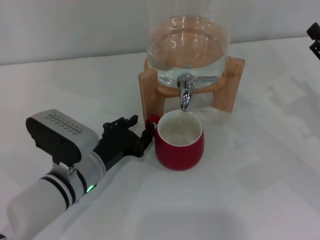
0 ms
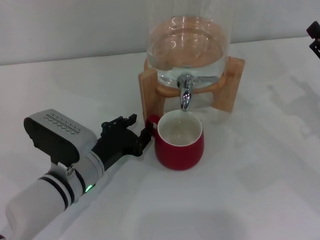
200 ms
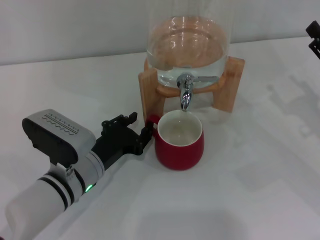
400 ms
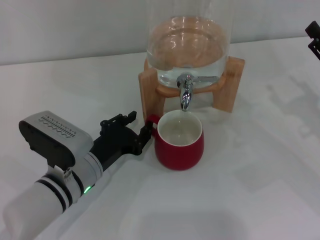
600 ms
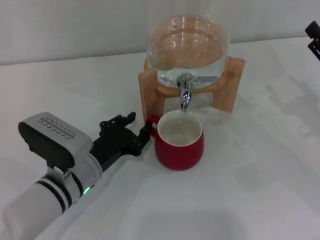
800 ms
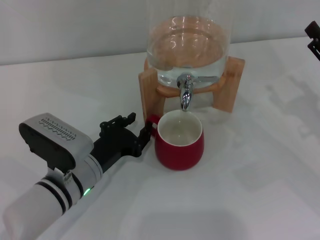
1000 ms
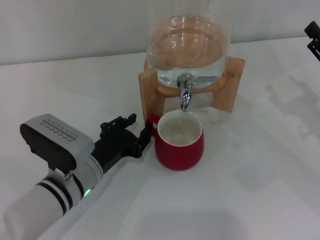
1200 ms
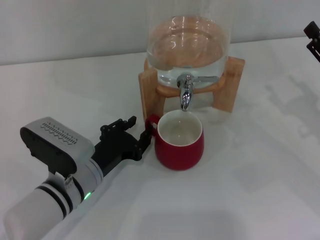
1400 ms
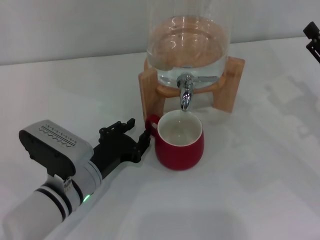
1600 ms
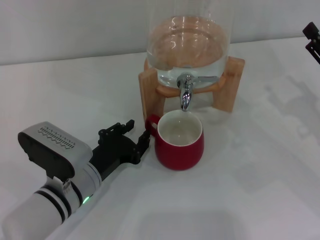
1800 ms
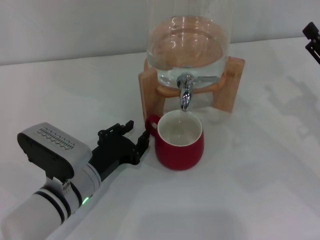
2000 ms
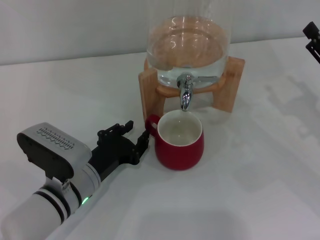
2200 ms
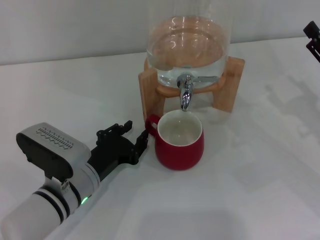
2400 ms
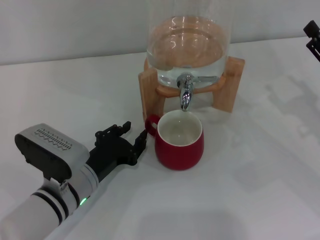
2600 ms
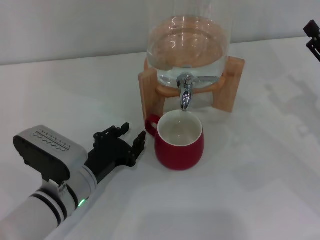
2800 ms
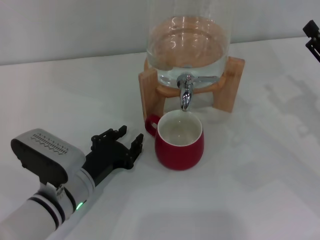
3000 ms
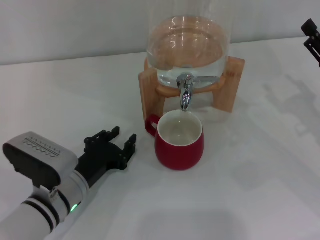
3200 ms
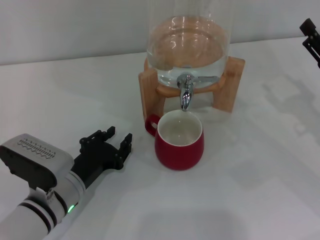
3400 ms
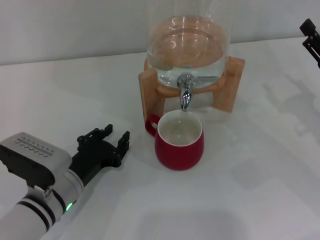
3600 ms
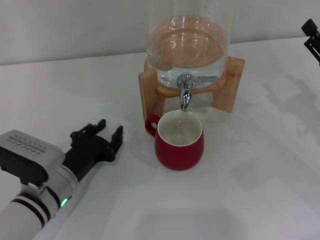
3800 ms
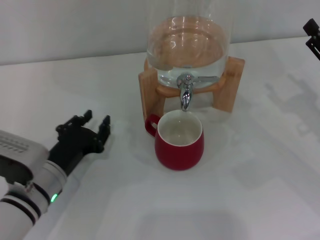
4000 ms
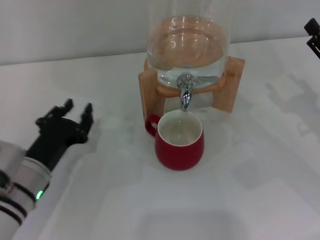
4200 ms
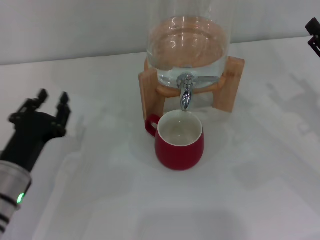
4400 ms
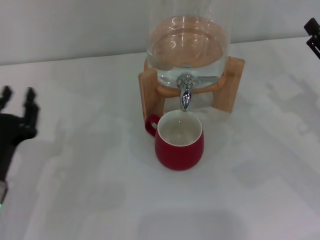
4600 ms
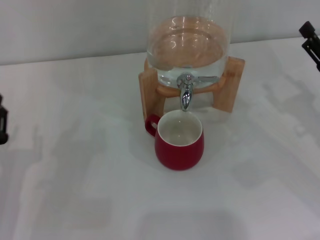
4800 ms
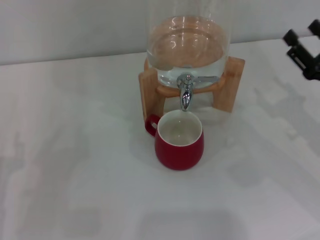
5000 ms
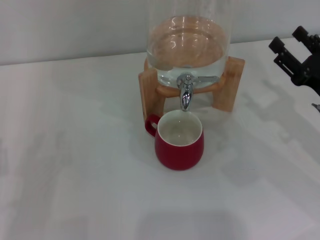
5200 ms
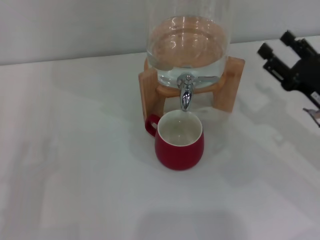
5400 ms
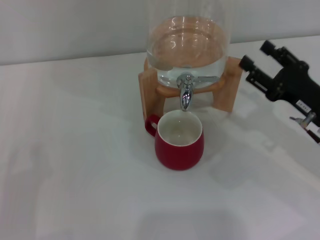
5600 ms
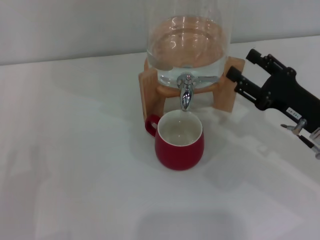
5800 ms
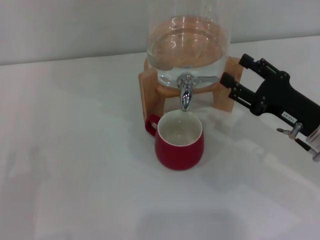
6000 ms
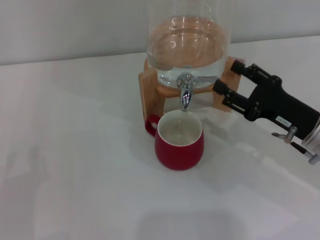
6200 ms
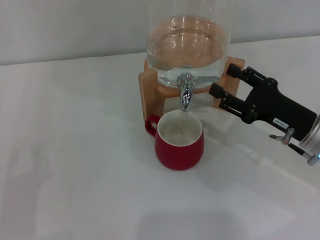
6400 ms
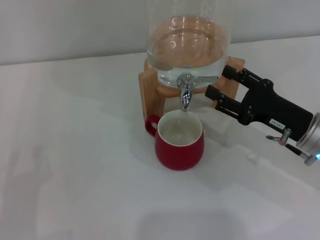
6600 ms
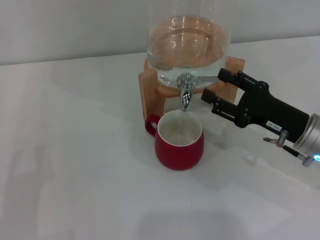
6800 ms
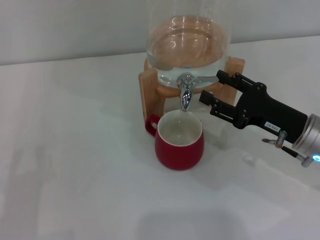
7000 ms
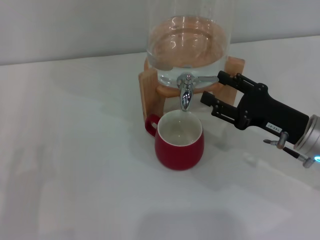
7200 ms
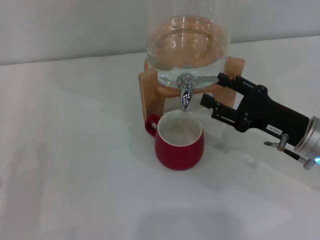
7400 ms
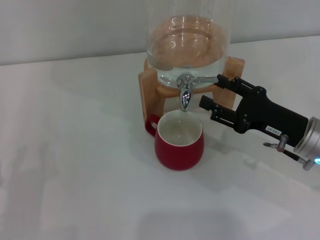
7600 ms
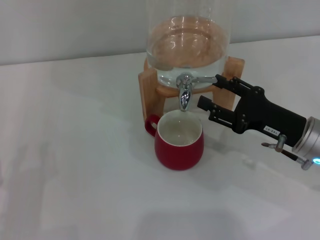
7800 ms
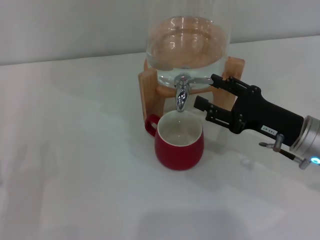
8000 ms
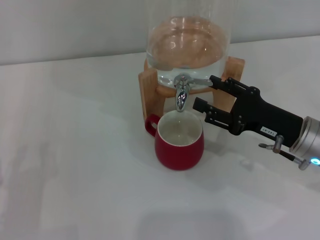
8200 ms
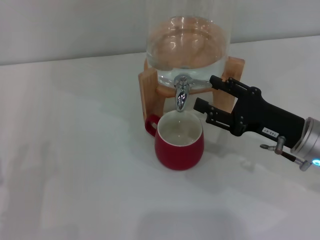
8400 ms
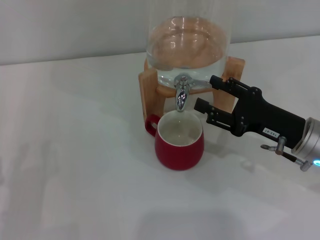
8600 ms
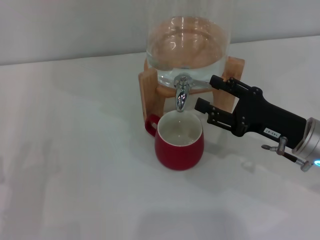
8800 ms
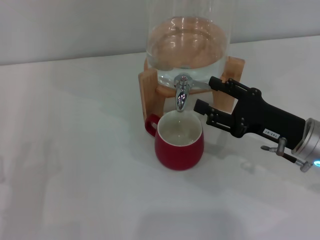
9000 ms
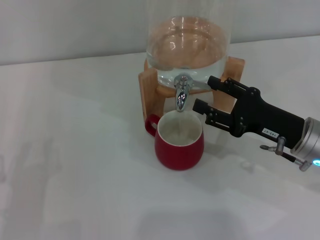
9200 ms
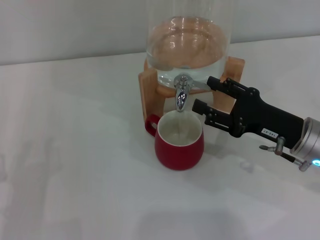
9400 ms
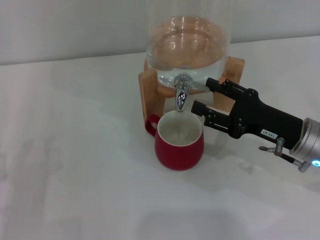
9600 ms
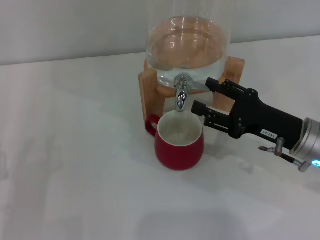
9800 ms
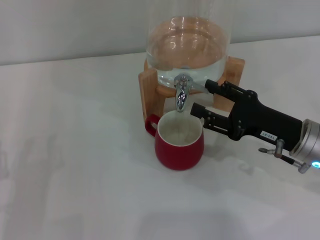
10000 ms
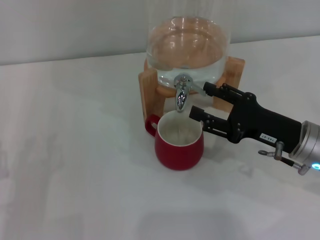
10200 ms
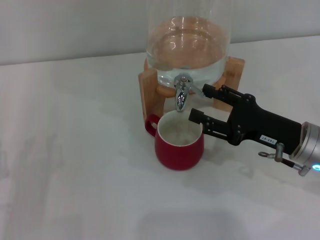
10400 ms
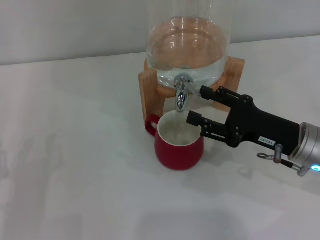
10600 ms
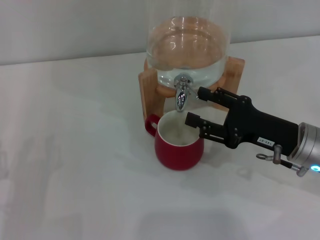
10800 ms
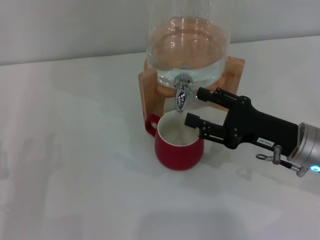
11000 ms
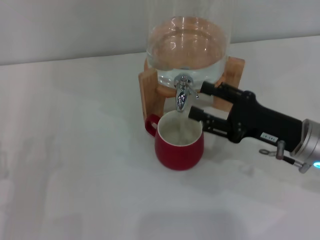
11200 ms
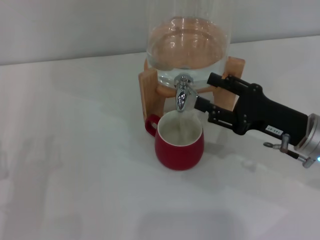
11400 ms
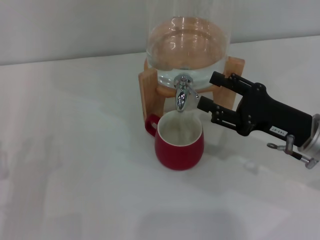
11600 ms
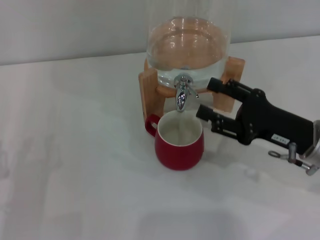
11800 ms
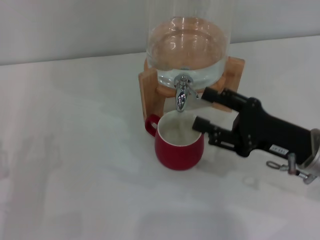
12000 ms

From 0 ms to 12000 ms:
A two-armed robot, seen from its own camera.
Task of the whole recording: the left gripper pick up the red cup and place it horizontally under the faucet, the right gripper turn on the faucet to fill the cup, and then turn off the faucet.
Step, from 0 ms to 11600 ms: Open the dispenser valve and fill the cup with water with the right gripper.
From 0 ms to 3000 ms: The grippers move only a little.
From 3000 ms to 4400 ms: The left gripper shifts approximately 5 cm to the left.
From 4400 ms to 6000 ms: The right gripper shifts approximately 5 cm to the left. The left gripper moves to the left and backward, approximately 10 cm.
From 6000 ms to 7600 ms: The grippers move only a little.
From 7600 ms to 9000 ms: Neither gripper changes place.
From 9000 ms to 10400 ms: Neither gripper changes place.
From 10400 ms to 12000 ms: The grippers stay close to where they were, moving slightly.

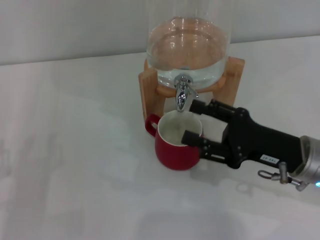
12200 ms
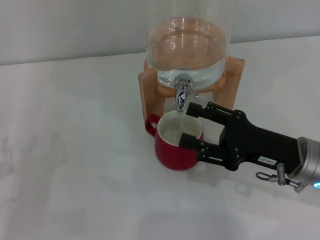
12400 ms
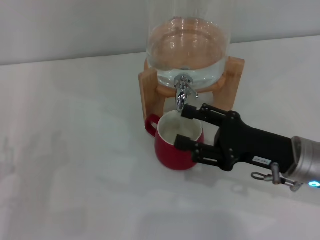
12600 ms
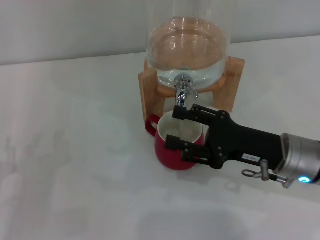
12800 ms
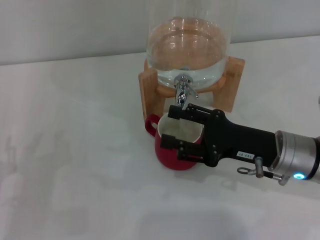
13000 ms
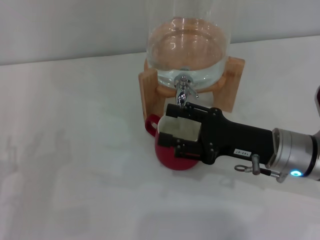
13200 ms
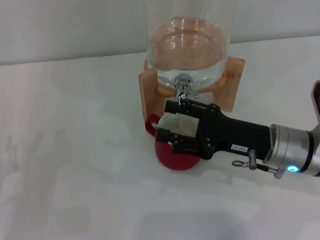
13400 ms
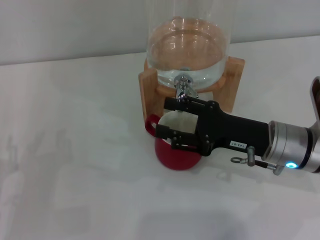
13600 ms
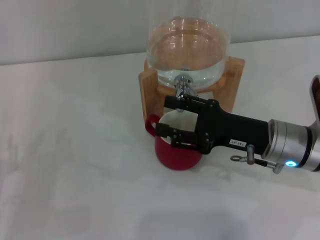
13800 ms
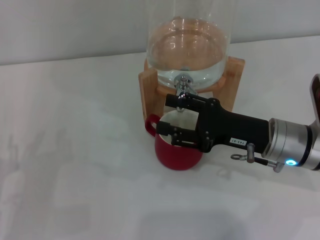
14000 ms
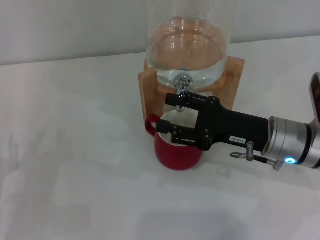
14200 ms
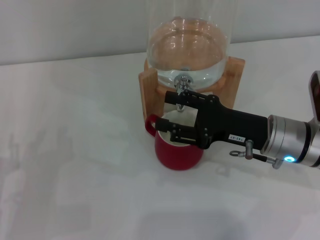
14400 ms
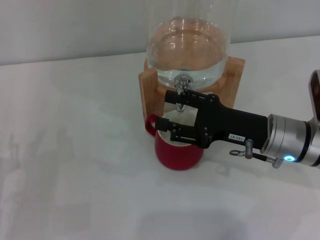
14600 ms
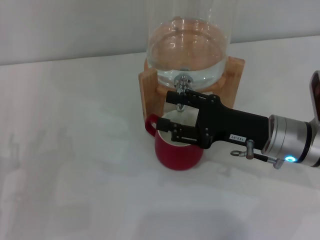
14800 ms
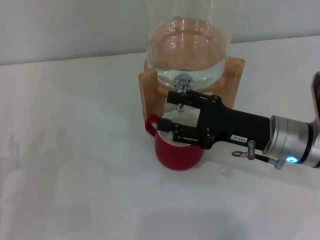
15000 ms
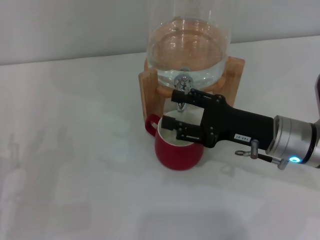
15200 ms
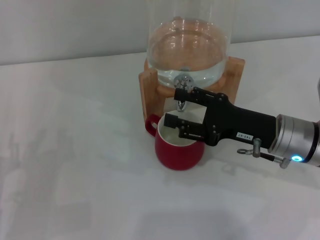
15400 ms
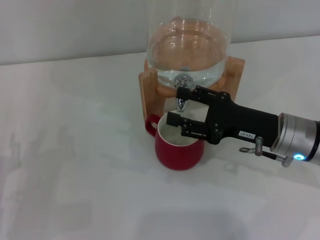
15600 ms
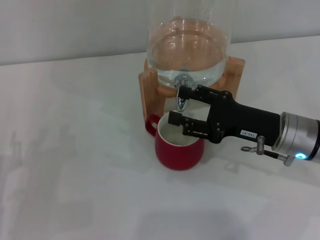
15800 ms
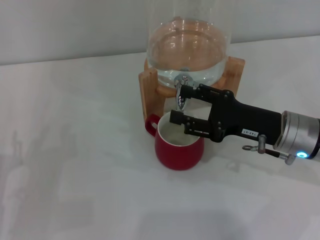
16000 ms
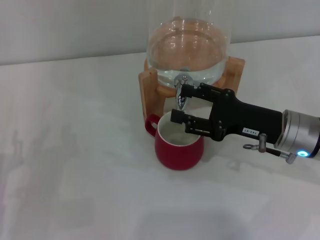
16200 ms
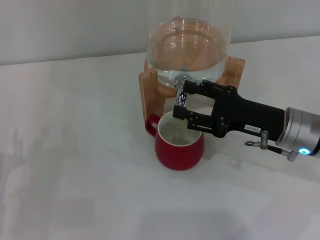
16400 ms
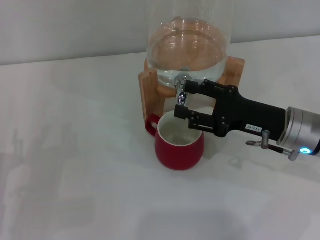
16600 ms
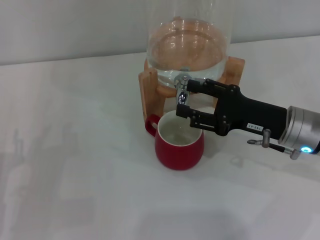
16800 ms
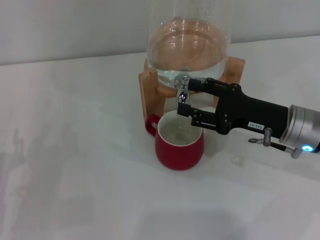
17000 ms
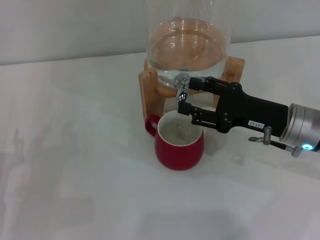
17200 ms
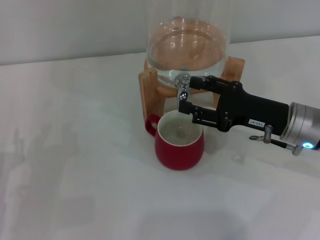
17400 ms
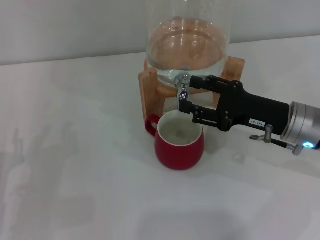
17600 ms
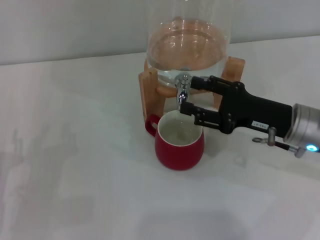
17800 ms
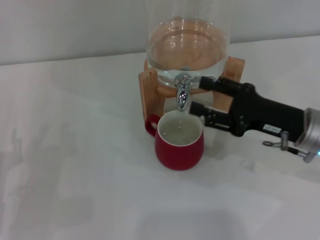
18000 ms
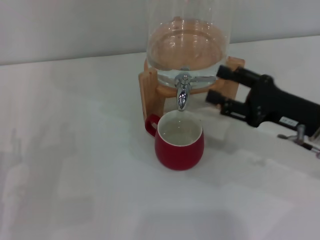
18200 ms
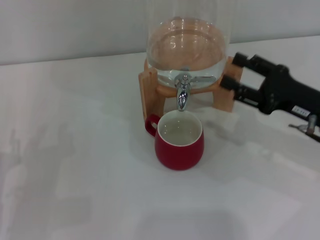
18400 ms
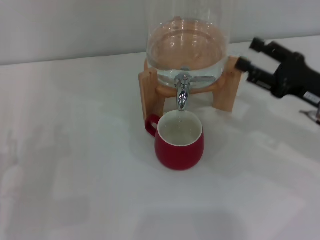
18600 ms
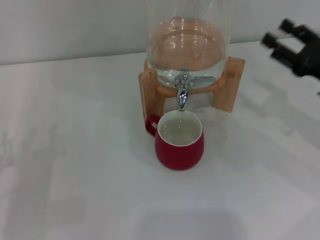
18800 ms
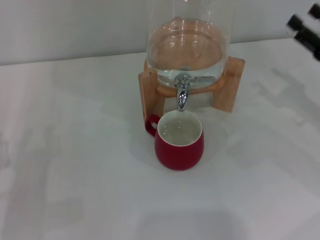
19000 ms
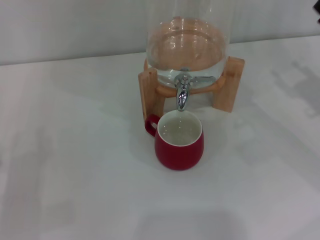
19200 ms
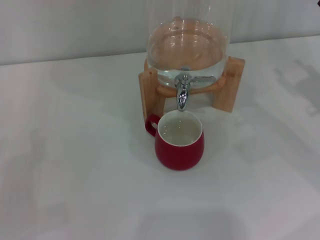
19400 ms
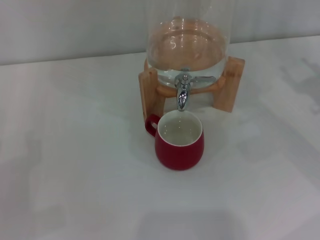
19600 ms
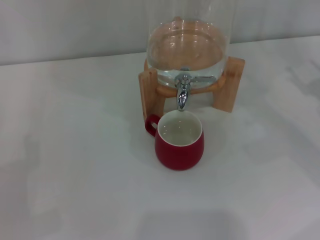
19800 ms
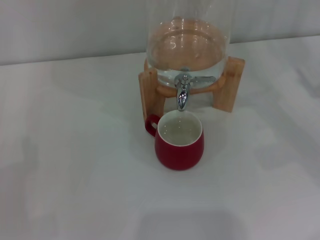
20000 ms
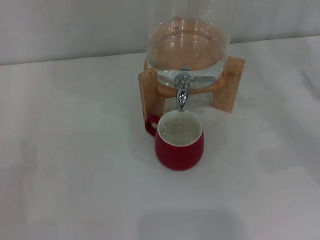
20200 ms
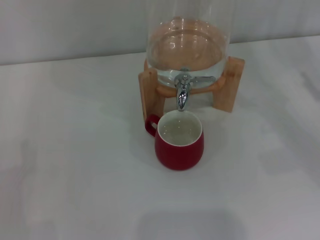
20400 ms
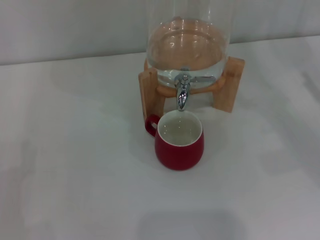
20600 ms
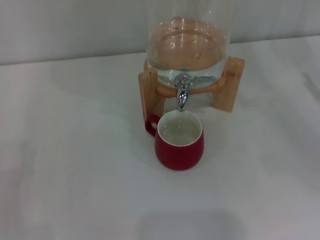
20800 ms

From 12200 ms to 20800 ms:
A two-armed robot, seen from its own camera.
Task of the whole recording: the left gripper pick up the red cup and place it horizontally under the faucet, the right gripper turn on the faucet to fill the cup, and then turn off the faucet.
Step, from 12200 ms to 18200 ms: Close the dispenser valve with the right gripper.
From 12200 ms to 13600 ms: The grippers move only a little.
From 13600 ms to 15000 ms: Both grippers stay about where they are.
From 15000 ms to 18000 ms: The grippers make only small movements.
From 18000 ms to 19400 ms: The right gripper travels to the right by some 10 cm.
